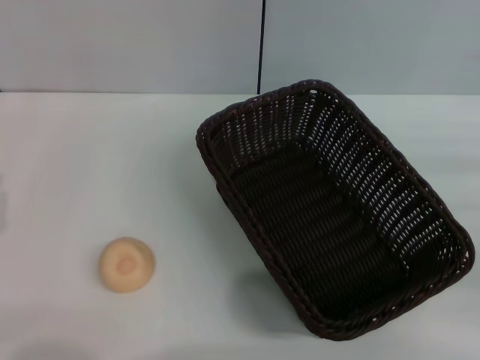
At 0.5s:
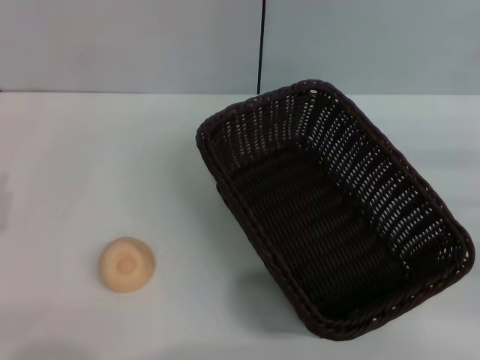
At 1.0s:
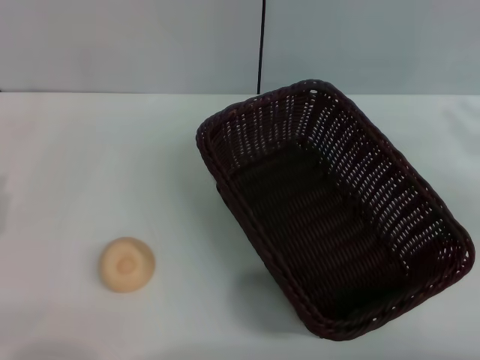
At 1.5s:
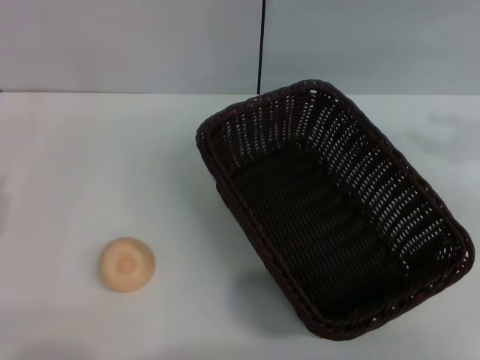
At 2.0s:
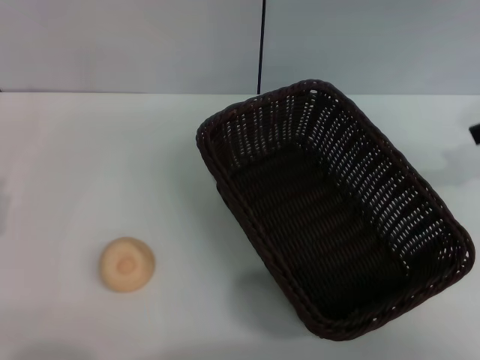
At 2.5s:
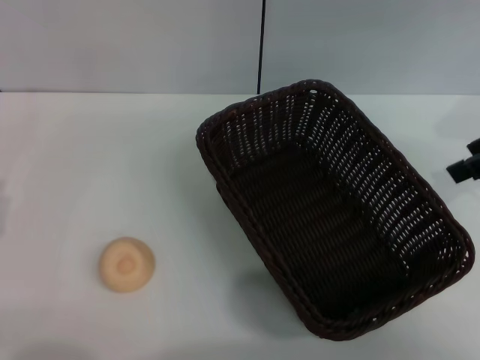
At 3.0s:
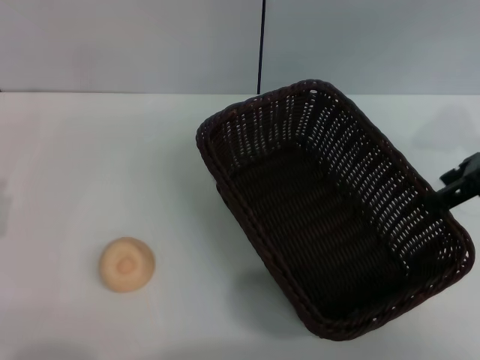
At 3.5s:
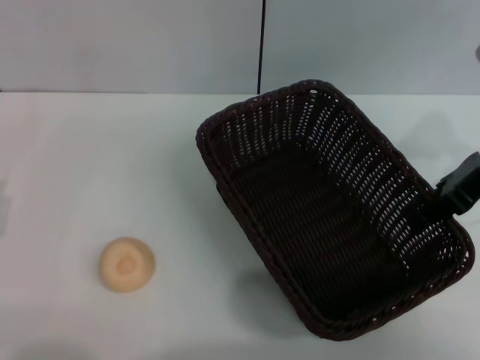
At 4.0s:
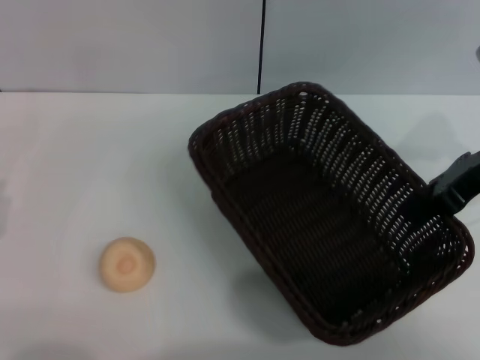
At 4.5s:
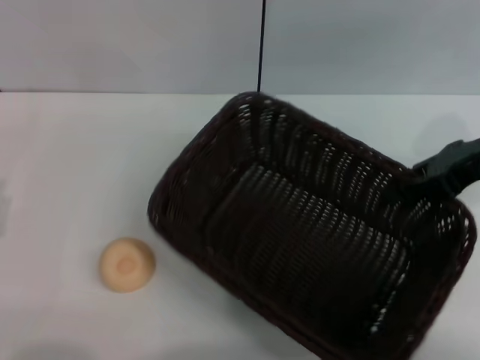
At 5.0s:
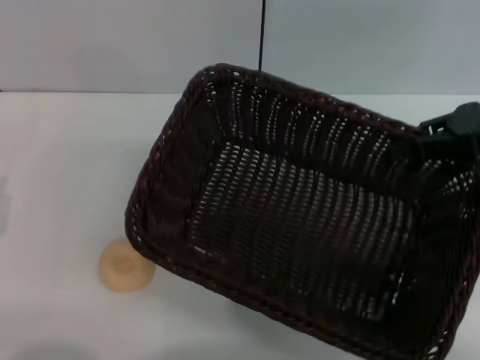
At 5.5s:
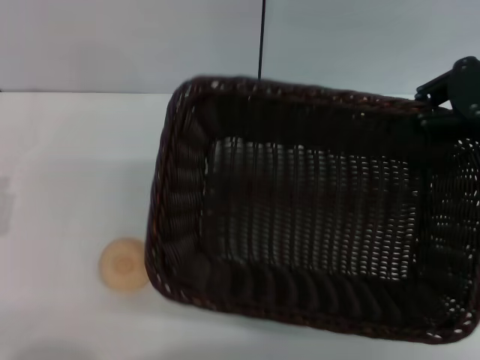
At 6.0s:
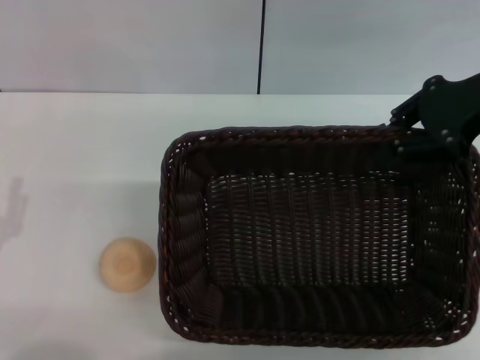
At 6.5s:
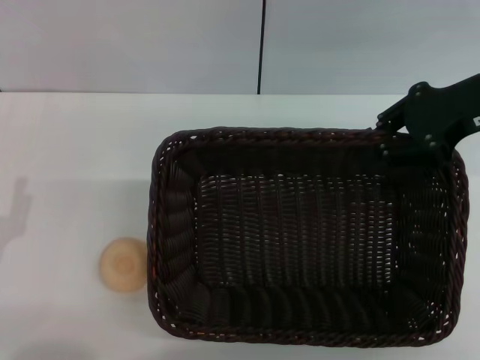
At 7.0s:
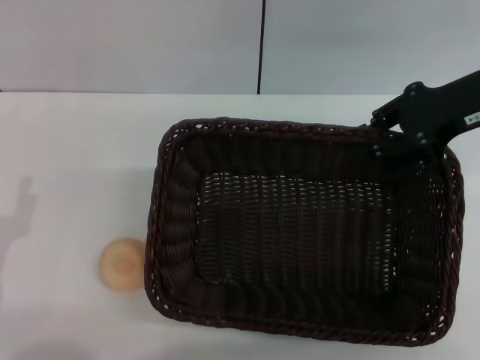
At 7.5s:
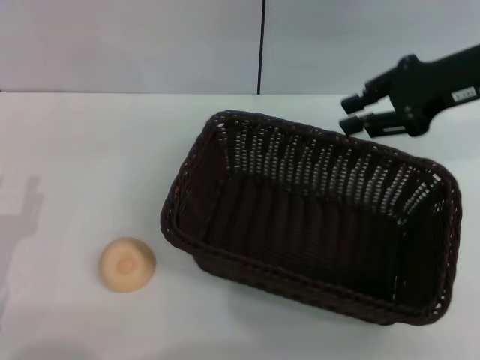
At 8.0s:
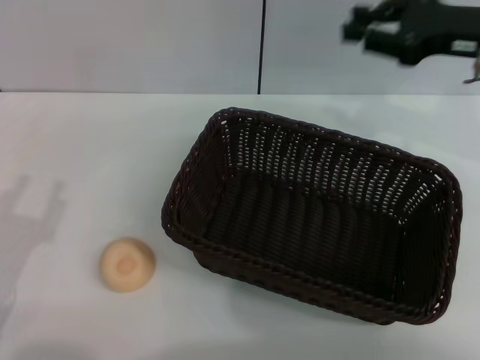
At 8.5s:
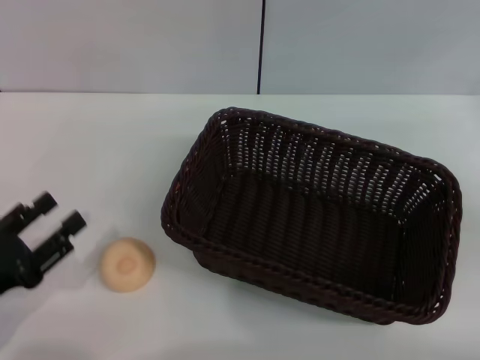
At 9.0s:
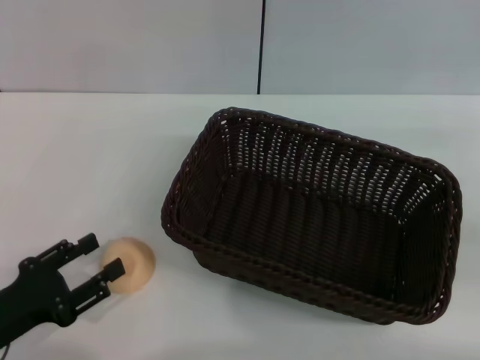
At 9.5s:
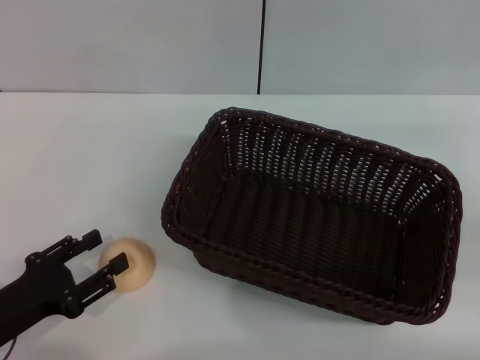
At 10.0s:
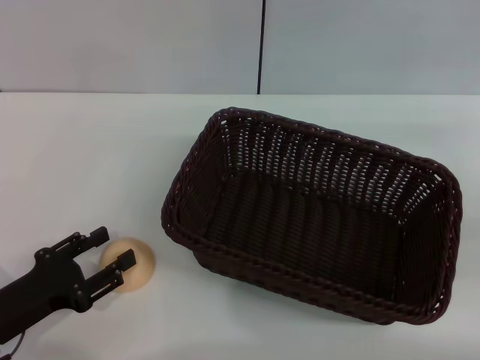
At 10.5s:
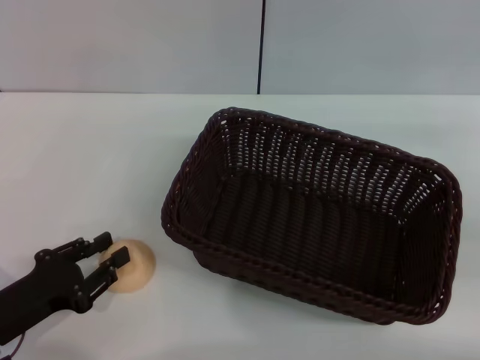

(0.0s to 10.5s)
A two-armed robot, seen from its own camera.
Step, 0.0s - 7.0s: Move the basket to the center of view with the right gripper.
0.0s - 2.0s: The right gripper moves upward and forward, approximately 20 cm, and opens up. The left gripper opens up.
2.0s - 4.0s: The right gripper shifts some 10 cm downward and to the left, and closes its fingers.
6.5s - 8.5s: The right gripper shifts about 15 cm to the right, downward and backward.
8.5s - 10.5s: The grippers stay close to where they were, moving slightly.

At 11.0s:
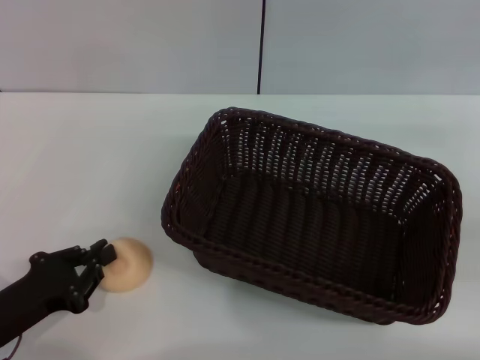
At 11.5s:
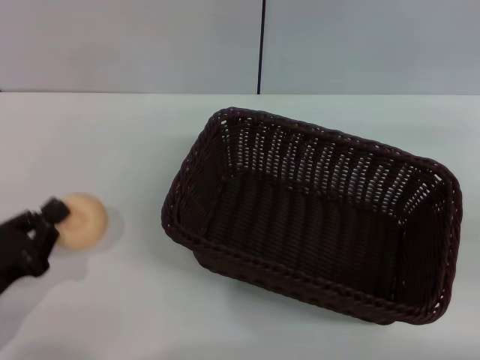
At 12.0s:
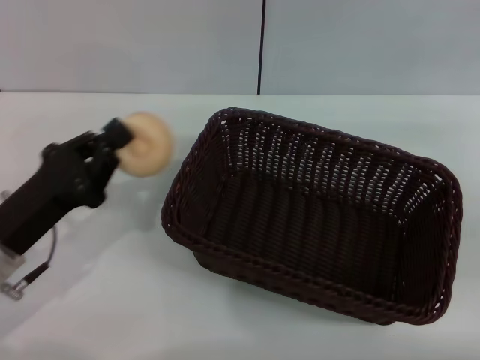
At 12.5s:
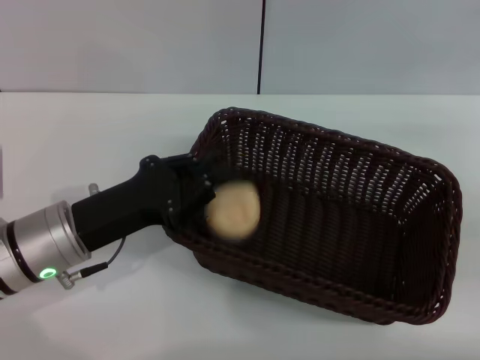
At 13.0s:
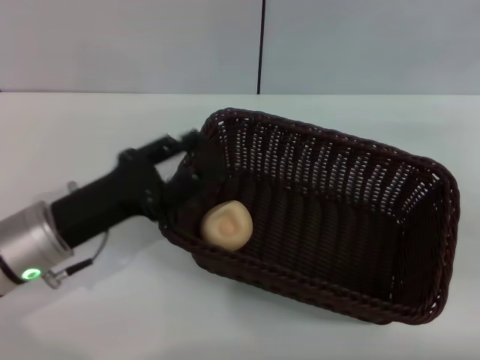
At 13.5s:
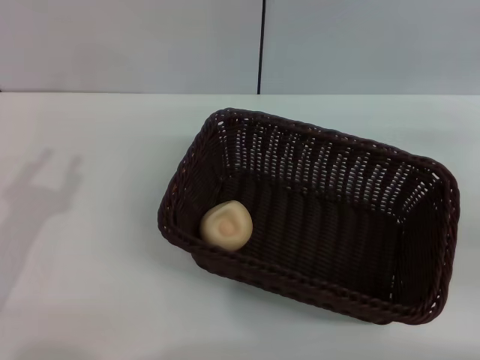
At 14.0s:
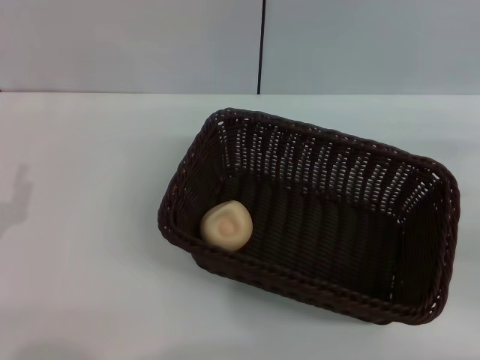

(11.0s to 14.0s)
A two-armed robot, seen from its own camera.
Step, 12.0s - 12.5s: Place the egg yolk pastry into the basket with the left gripper.
11.0s - 12.5s: The left gripper moves forward, to the right and upward, some 15 cm.
12.5s - 14.0s: The left gripper heads to the left and backward, covering roughly 15 cm, and opens its fingers.

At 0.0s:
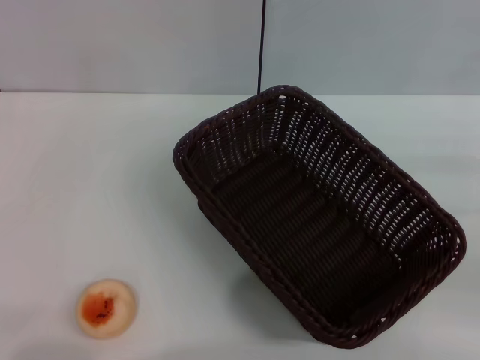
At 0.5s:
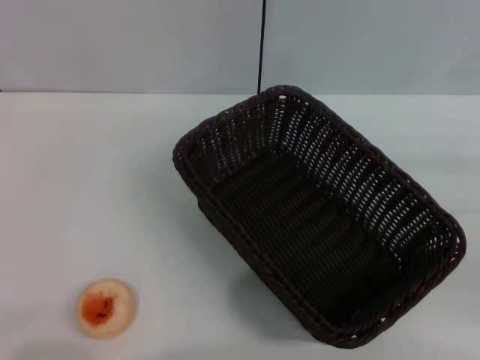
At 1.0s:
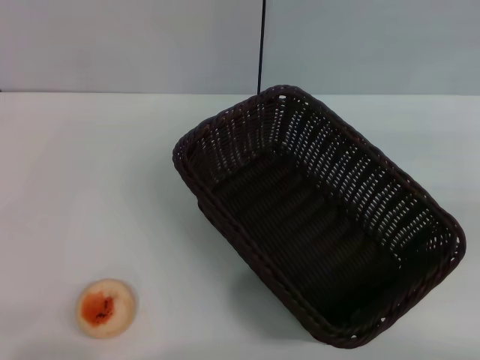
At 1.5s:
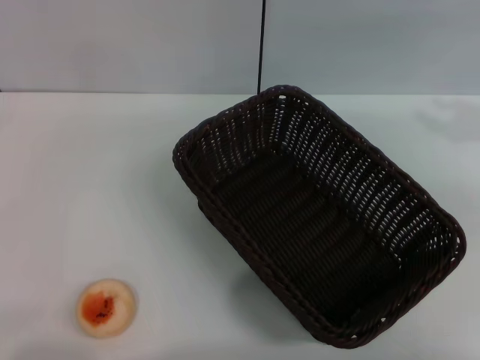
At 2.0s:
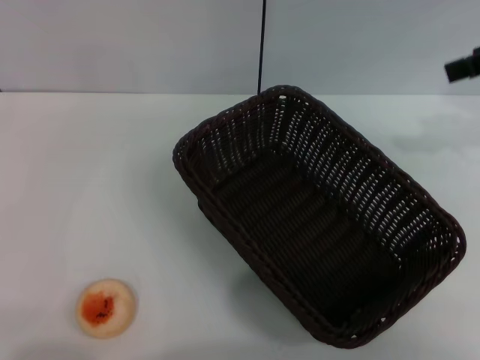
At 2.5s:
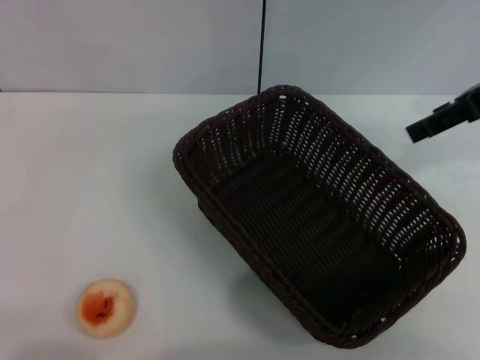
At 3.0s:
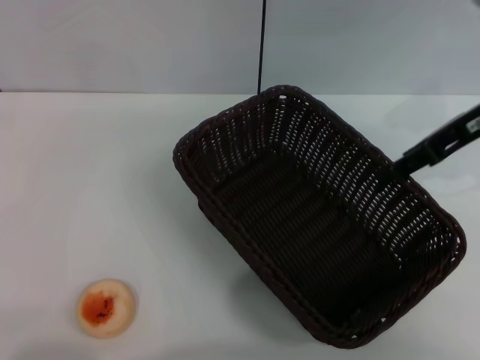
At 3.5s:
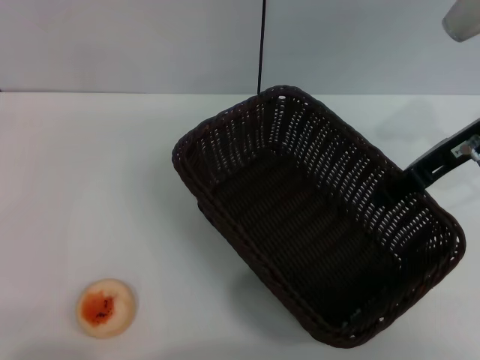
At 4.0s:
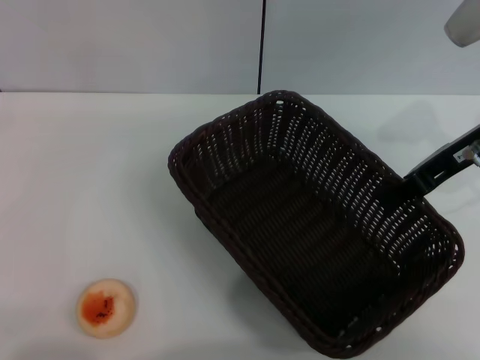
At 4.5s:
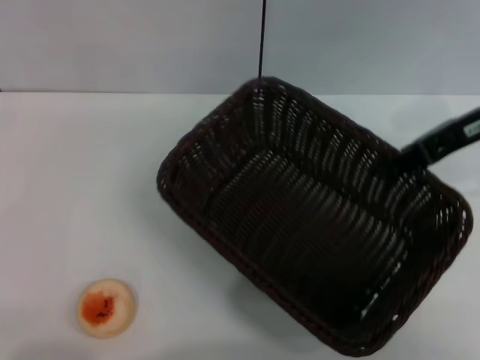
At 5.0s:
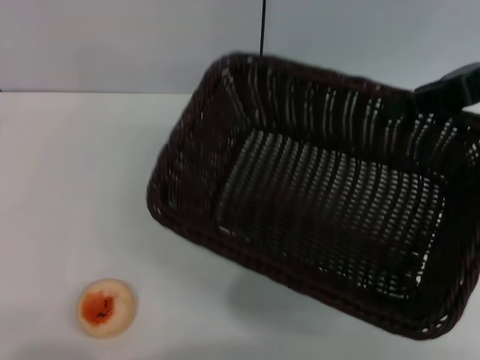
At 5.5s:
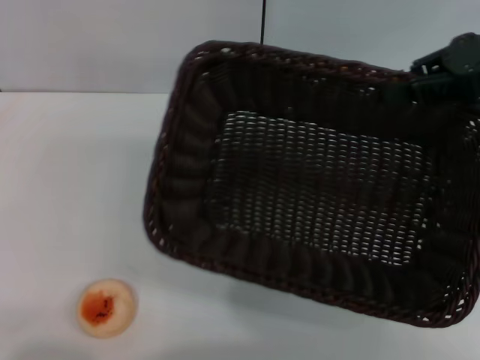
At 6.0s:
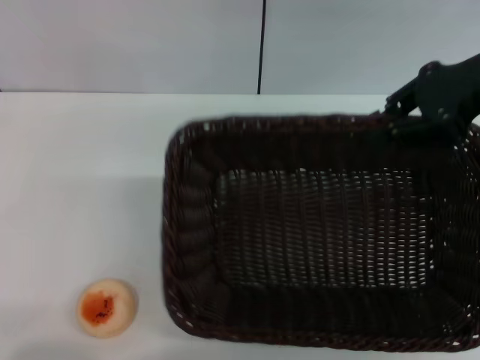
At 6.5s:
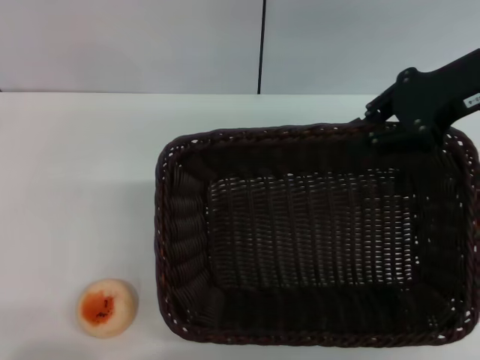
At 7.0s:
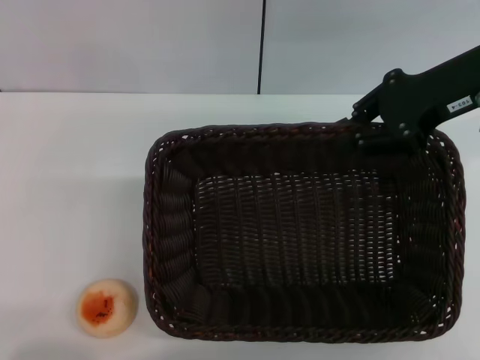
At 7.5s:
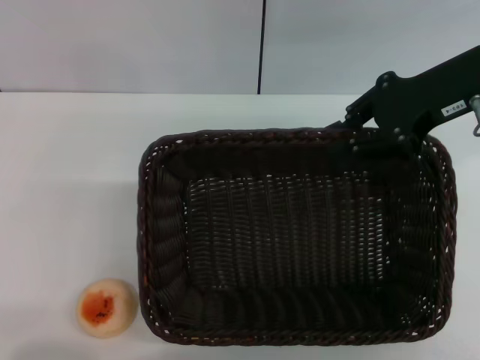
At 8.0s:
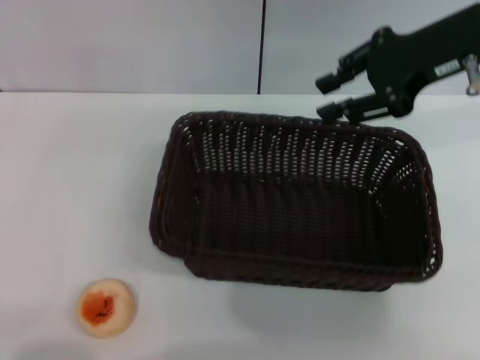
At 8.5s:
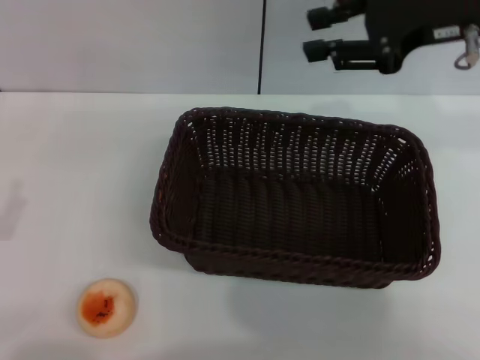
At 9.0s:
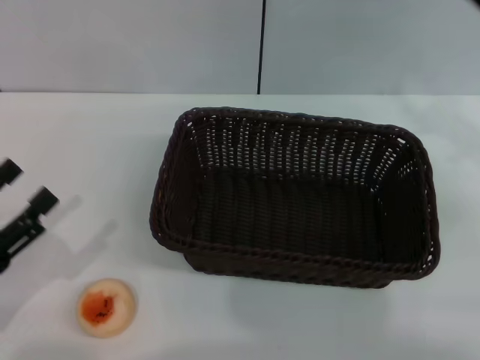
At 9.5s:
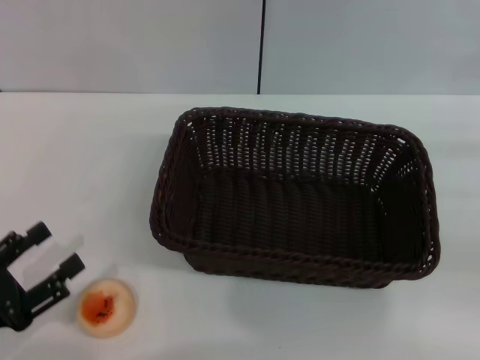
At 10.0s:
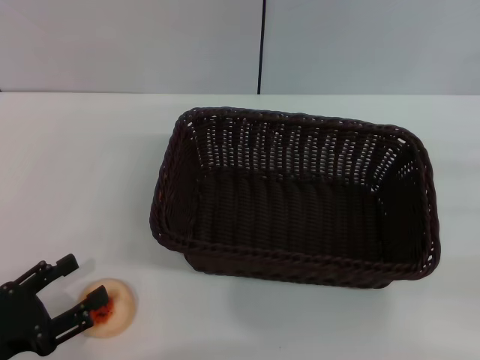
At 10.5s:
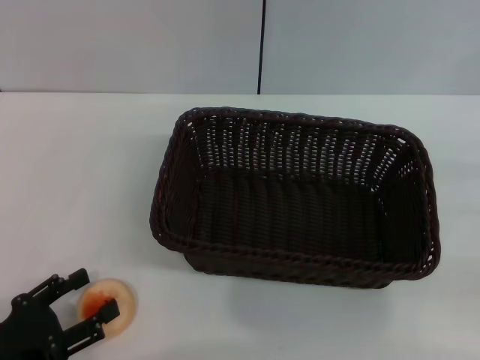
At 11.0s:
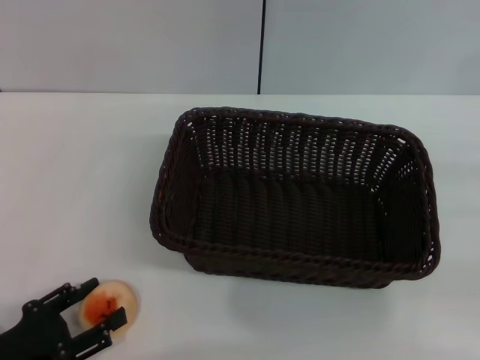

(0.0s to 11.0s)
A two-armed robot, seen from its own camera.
Step, 0.0s - 8.0s: Move the basket to the center of view with the right gripper.
0.0s - 2.0s: The right gripper heads upward, forward and to the left, covering some 25 cm, and opens.
2.0s - 3.5s: The right gripper is displaced downward and to the left by approximately 10 cm.
3.5s - 5.5s: The right gripper shifts about 5 cm upward, and closes.
5.5s - 7.5s: The right gripper heads to the left, covering about 5 cm.
7.5s - 9.0s: The right gripper goes some 15 cm to the right, downward and backward.
9.0s - 11.0s: The left gripper shifts by some 5 cm.

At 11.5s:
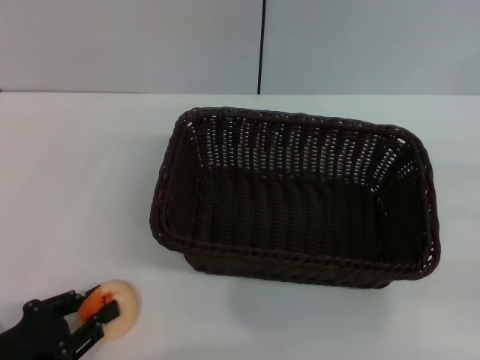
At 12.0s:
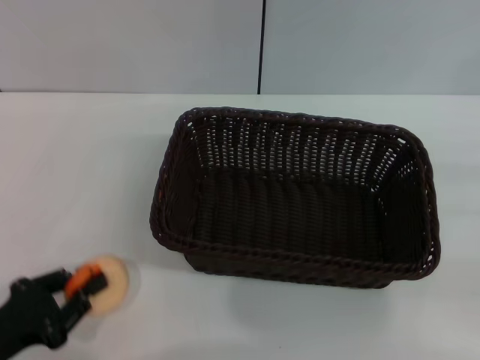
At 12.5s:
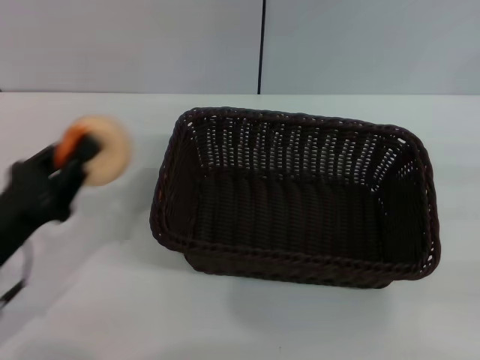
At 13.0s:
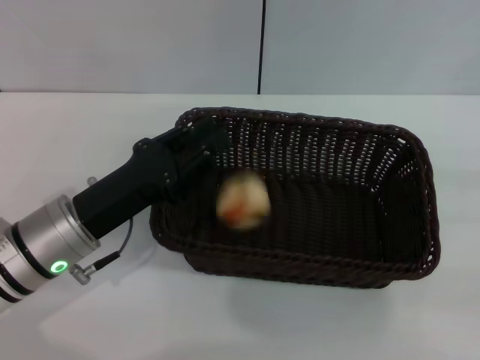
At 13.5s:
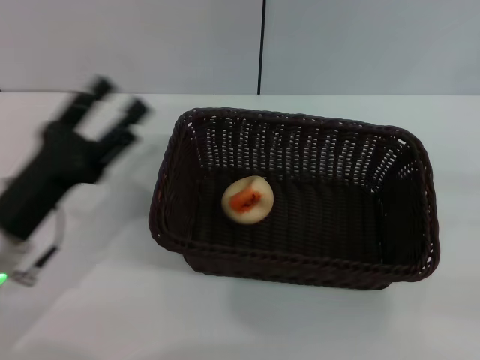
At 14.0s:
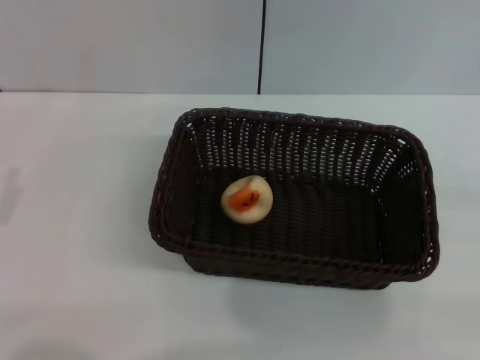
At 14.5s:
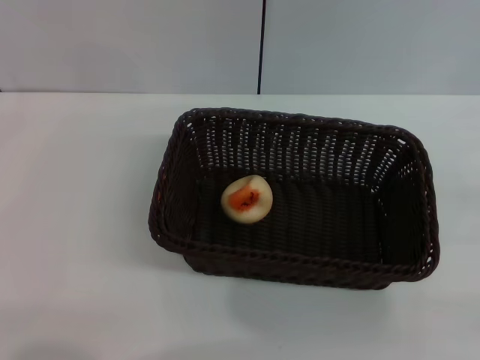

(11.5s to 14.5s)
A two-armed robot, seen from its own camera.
Step, 12.5s - 13.0s: Place the egg yolk pastry into the basket with the left gripper.
11.5s - 13.0s: The left gripper shifts approximately 15 cm forward, to the right and upward.
13.0s - 14.5s: The left gripper heads to the left and backward, covering roughly 20 cm, and opens.
